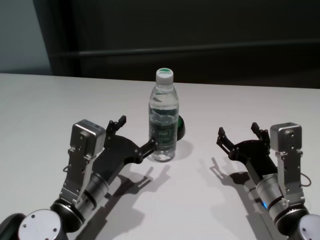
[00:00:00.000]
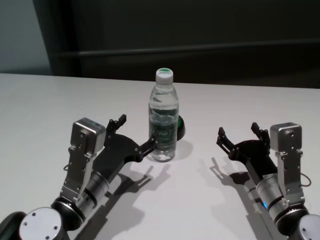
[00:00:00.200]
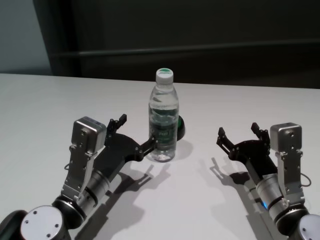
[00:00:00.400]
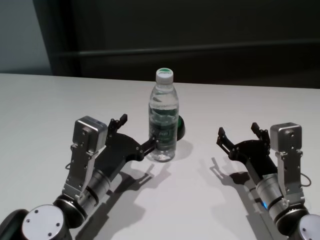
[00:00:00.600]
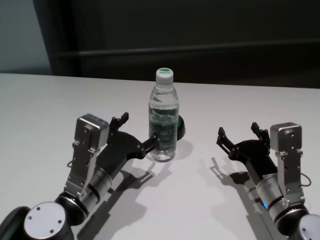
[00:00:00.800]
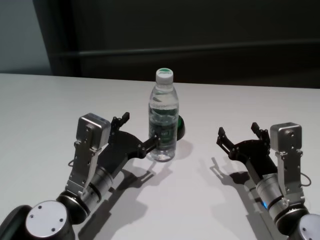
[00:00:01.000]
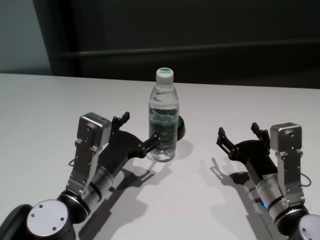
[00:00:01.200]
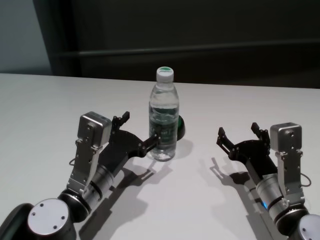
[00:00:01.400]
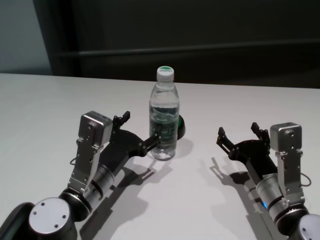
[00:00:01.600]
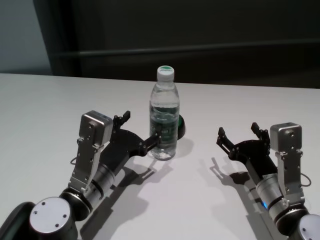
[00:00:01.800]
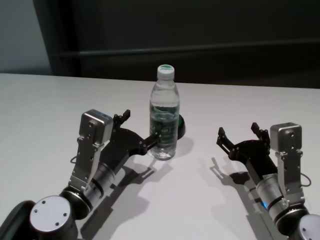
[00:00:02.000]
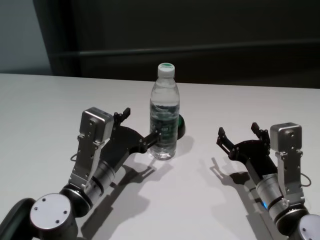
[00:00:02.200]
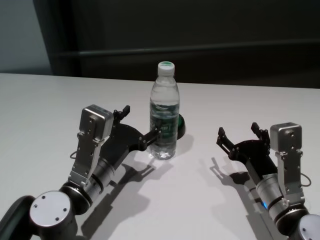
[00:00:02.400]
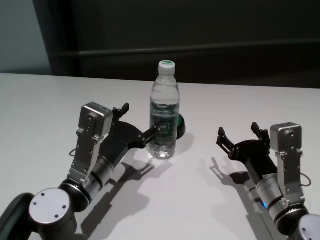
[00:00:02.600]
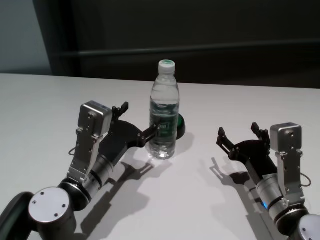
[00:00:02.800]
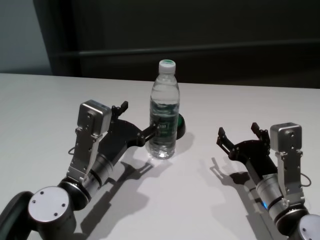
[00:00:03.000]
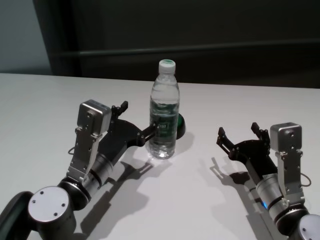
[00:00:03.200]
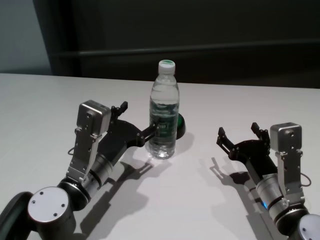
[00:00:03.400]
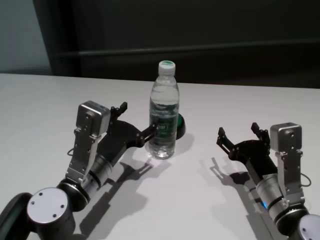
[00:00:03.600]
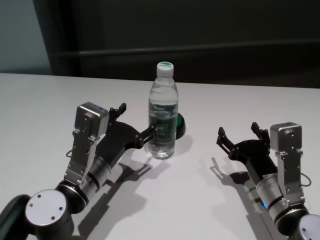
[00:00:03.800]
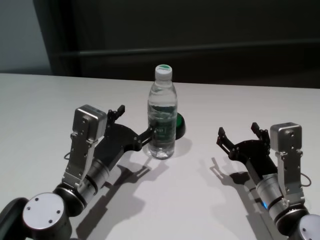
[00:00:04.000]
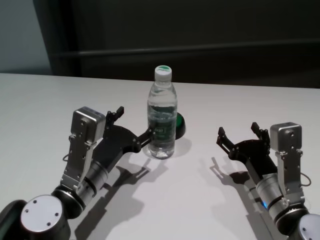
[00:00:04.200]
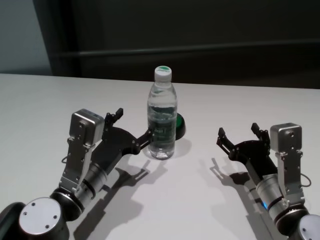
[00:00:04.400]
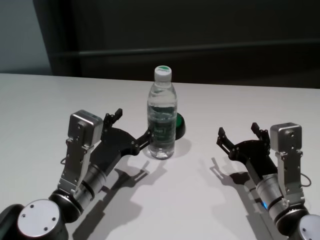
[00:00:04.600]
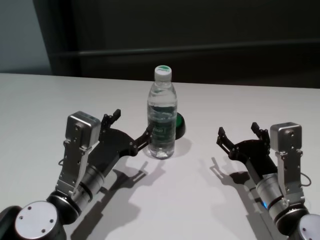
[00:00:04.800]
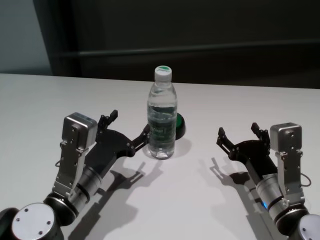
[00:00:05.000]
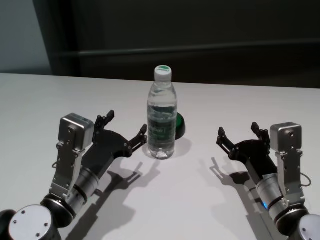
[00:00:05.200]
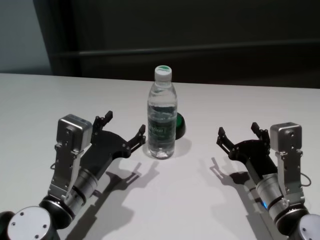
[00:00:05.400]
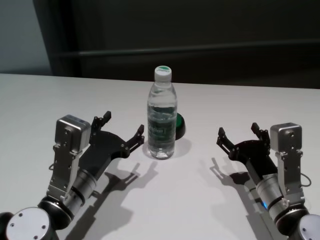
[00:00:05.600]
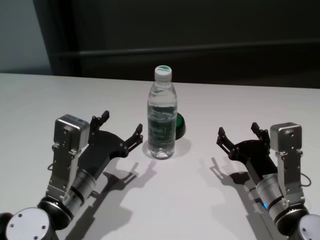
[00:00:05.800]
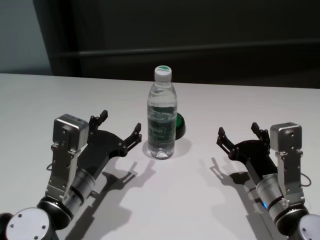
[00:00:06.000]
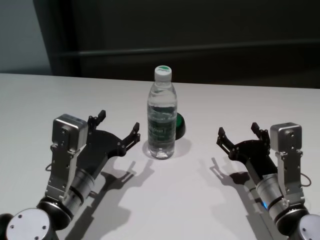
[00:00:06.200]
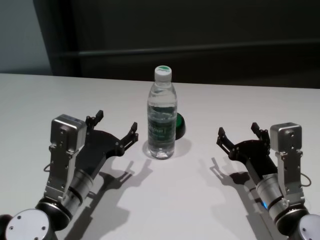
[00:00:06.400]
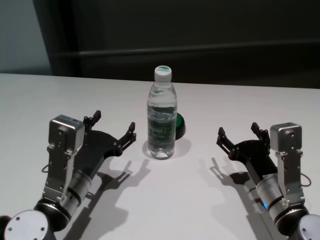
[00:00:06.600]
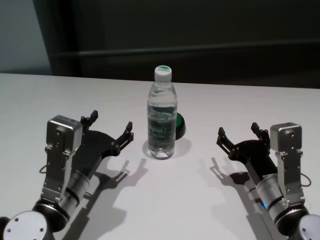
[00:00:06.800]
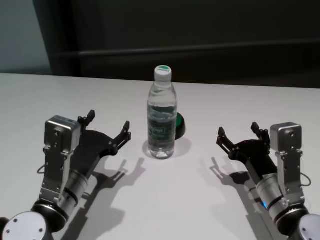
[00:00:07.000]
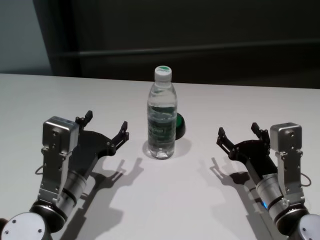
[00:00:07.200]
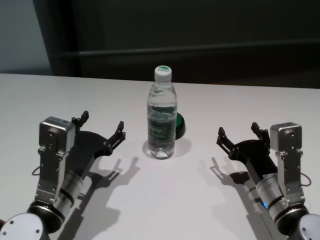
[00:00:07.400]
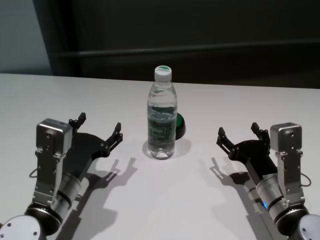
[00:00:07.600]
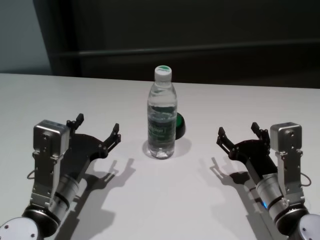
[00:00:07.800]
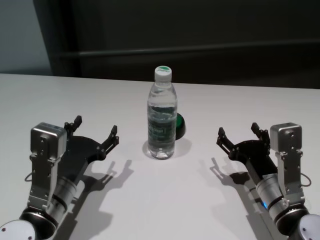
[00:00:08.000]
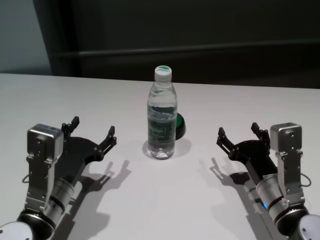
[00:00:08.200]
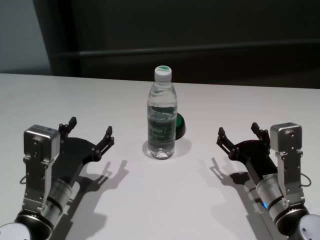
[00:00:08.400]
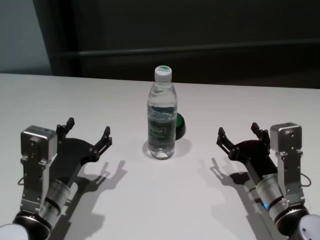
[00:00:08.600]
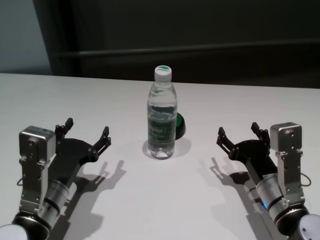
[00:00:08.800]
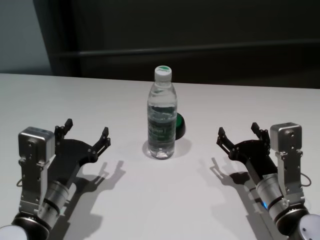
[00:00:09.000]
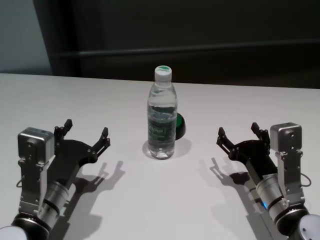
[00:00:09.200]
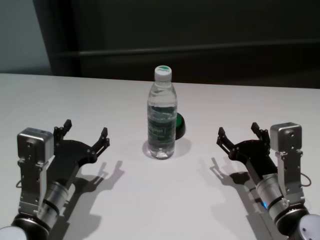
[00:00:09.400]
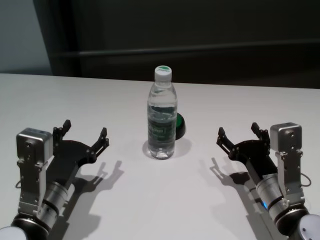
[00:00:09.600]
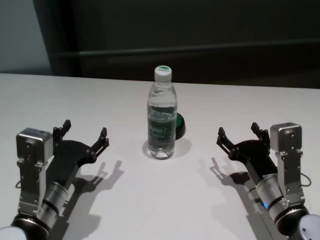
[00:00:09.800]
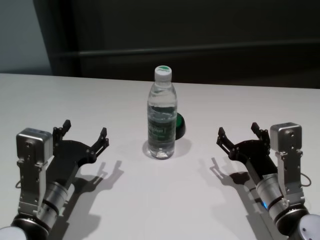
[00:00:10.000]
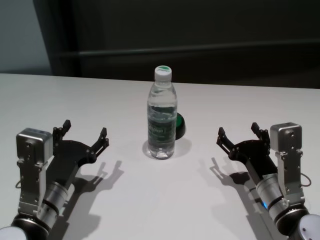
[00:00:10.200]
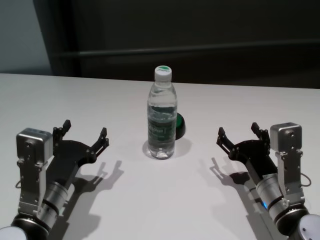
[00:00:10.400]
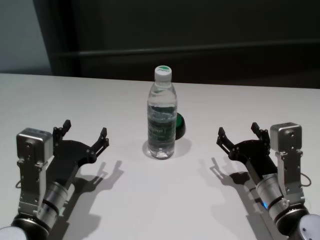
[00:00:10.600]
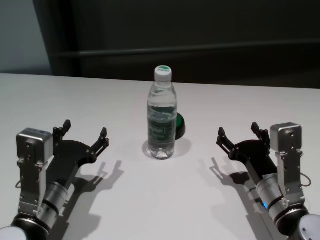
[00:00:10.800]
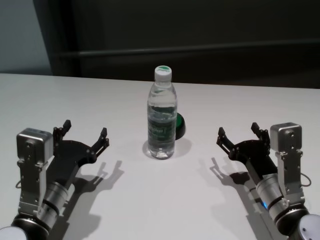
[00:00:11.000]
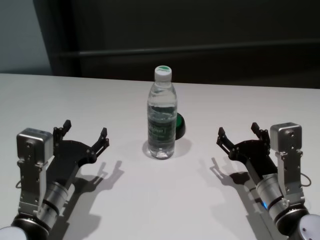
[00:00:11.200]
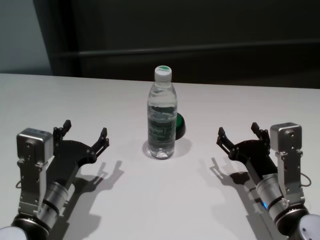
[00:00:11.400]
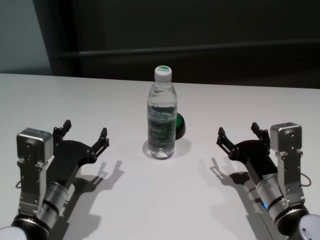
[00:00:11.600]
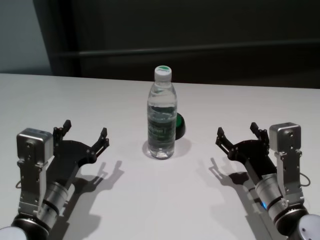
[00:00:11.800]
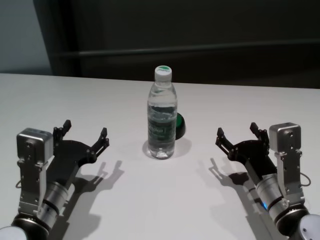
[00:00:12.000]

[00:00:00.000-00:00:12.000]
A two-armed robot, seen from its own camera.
Task of the whole recording: return to a safe position after touching an obstacle with your arm on the white table.
Step, 00:00:00.000 to 00:00:05.600: Touch the bottle with left gripper.

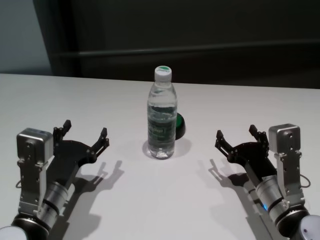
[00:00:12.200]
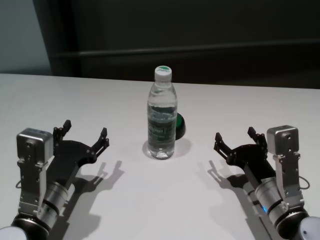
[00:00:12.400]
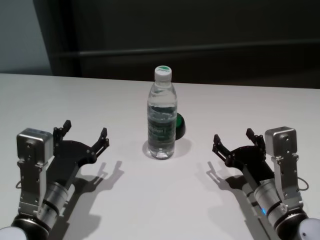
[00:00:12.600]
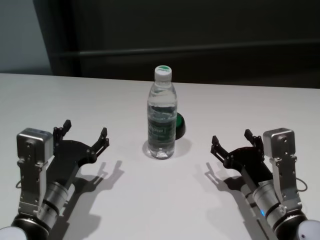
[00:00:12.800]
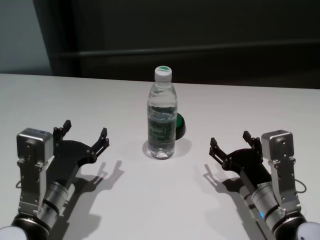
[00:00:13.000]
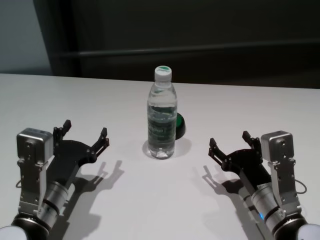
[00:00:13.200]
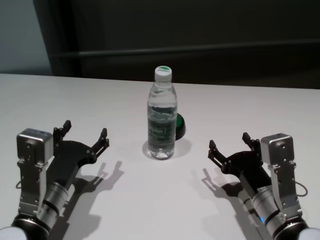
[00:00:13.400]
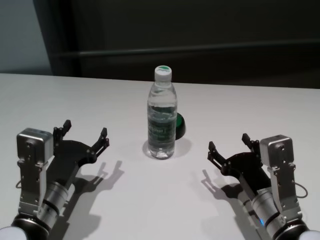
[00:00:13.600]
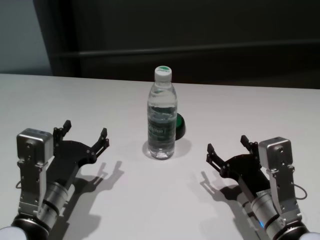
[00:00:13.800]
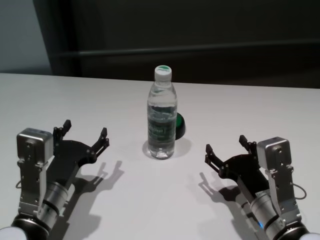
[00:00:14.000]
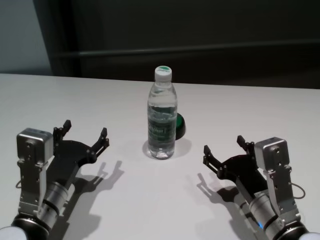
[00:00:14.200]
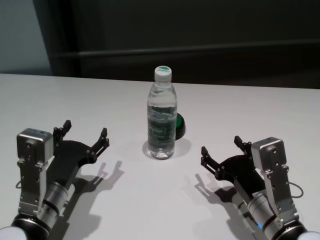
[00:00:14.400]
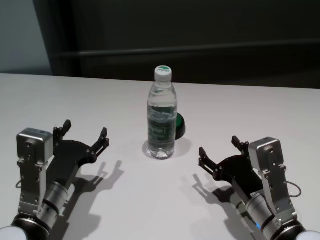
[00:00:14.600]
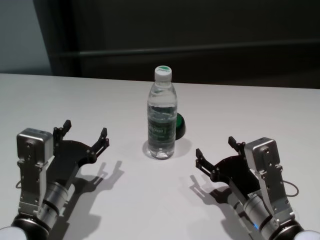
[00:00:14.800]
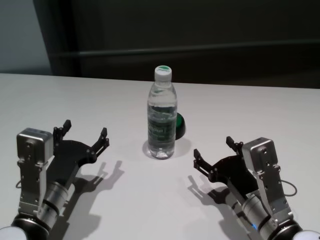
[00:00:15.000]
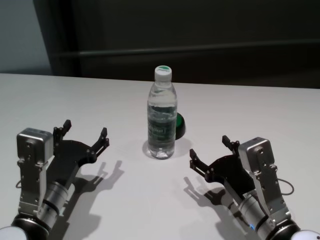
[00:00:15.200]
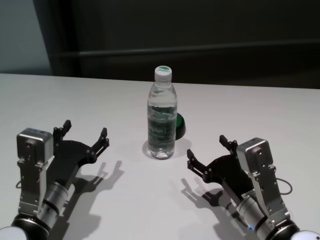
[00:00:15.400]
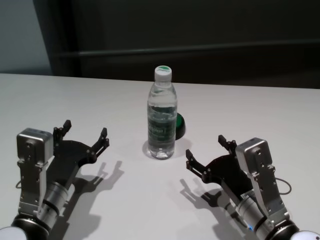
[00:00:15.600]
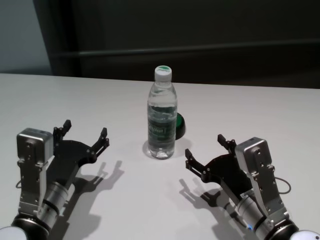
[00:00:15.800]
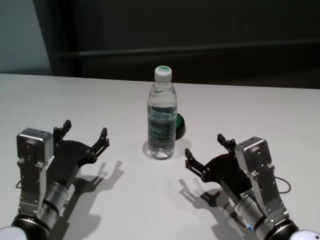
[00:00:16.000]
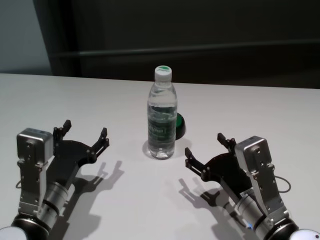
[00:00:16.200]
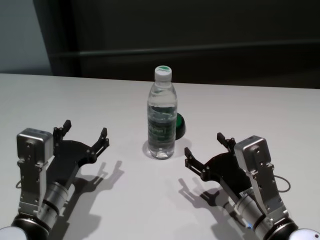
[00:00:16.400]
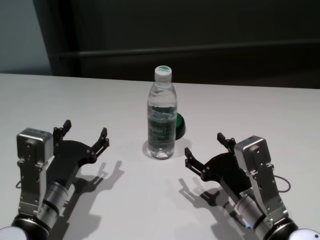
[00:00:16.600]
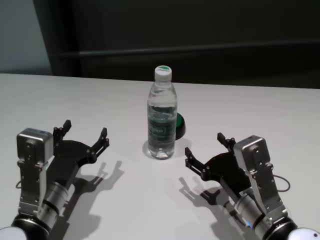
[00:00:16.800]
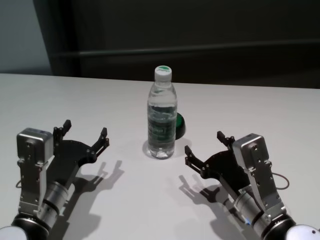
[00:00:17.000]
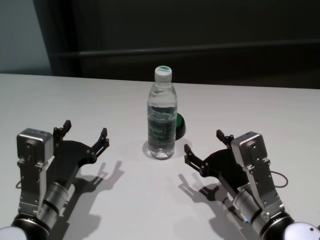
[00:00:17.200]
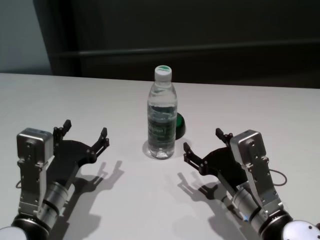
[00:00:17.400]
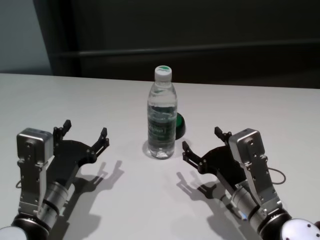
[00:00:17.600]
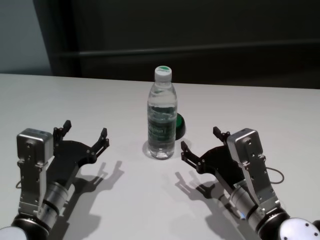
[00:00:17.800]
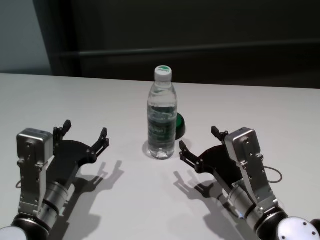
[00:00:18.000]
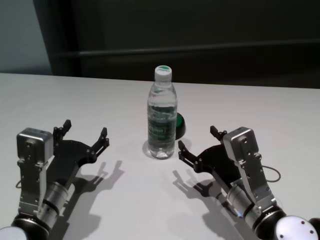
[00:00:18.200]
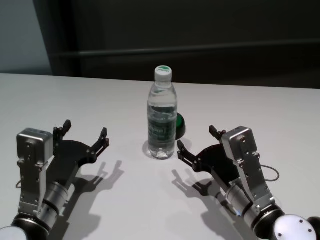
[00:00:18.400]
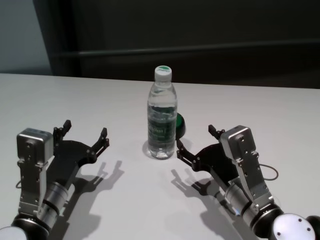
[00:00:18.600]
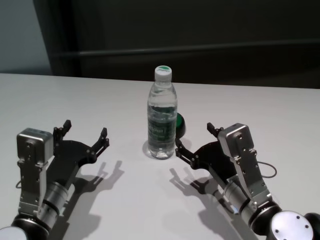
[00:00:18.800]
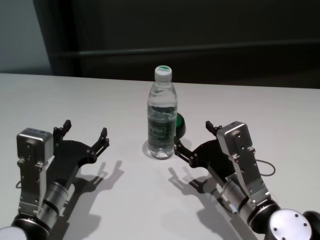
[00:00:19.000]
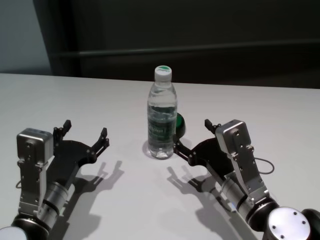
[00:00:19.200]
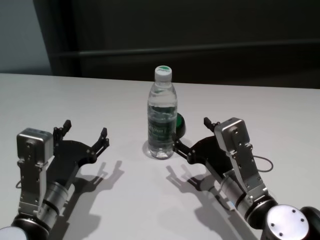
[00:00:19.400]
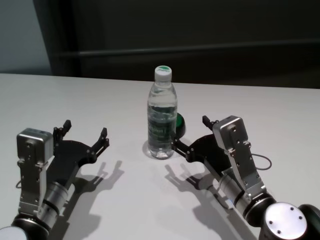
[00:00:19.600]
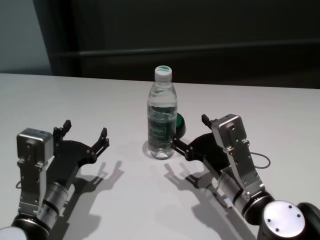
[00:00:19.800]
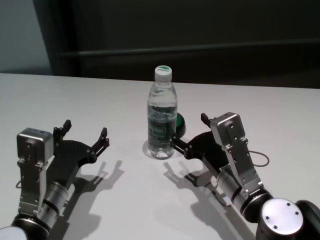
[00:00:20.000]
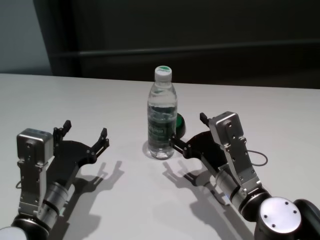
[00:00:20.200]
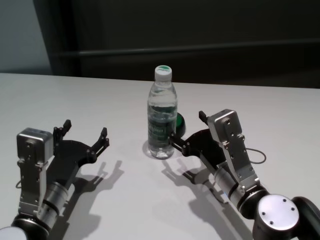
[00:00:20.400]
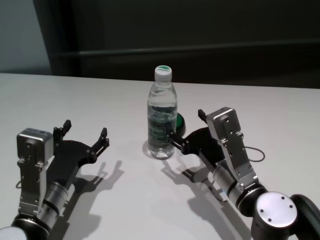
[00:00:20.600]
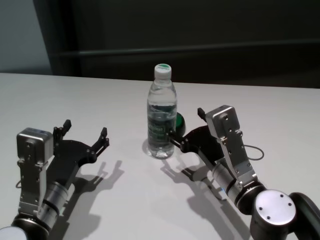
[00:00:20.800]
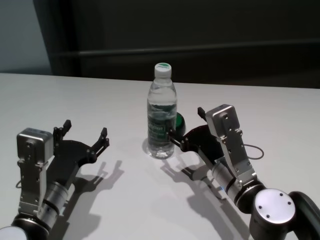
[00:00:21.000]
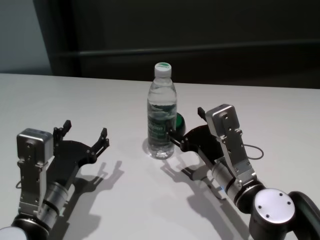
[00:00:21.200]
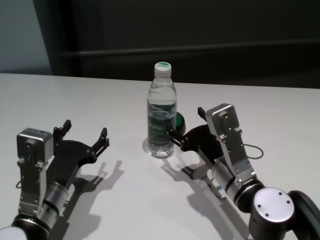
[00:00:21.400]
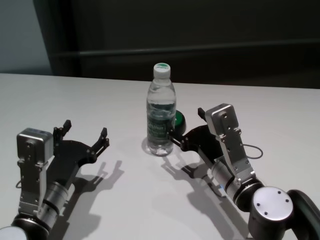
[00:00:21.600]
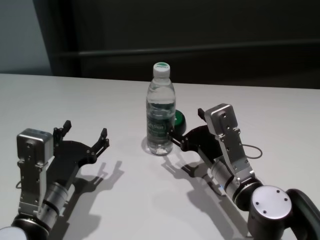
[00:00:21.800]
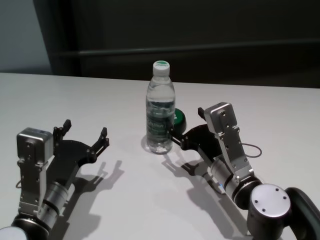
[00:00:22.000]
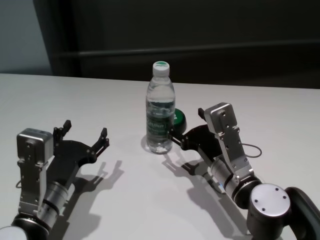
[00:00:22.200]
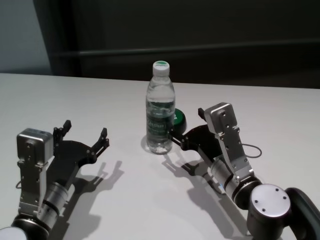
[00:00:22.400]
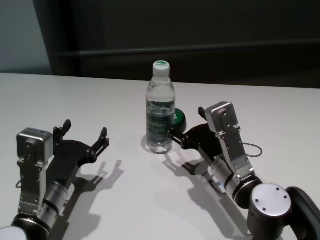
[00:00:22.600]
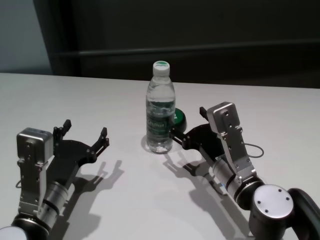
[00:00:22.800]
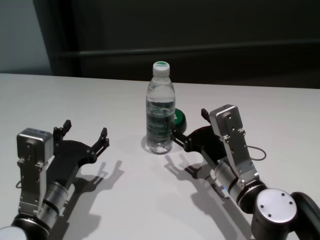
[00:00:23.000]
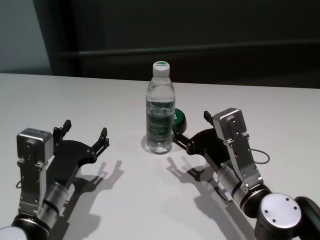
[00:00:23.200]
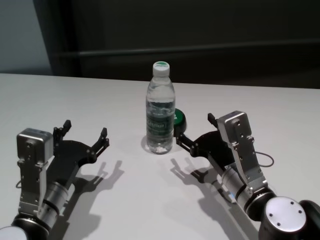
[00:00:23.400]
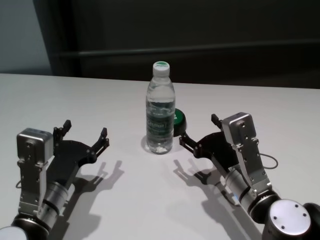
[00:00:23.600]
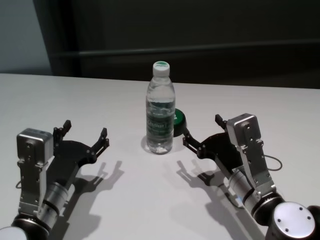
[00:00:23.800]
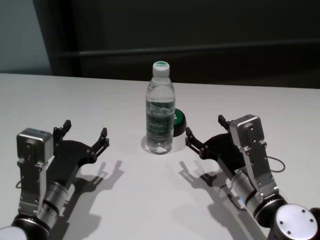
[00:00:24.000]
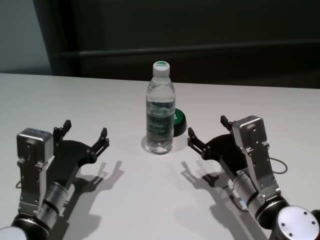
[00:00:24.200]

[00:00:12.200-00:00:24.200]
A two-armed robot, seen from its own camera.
Task of the whole recording: return to a safe position after touching an obstacle with your arm on the white table.
Step, 00:00:12.200 to 00:00:24.000: Touch the bottle with right gripper.
